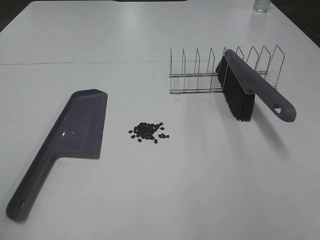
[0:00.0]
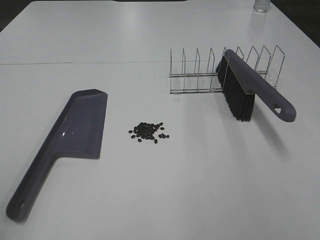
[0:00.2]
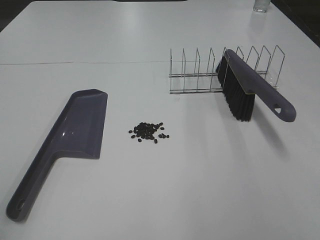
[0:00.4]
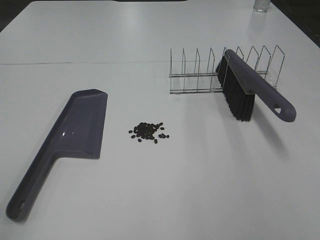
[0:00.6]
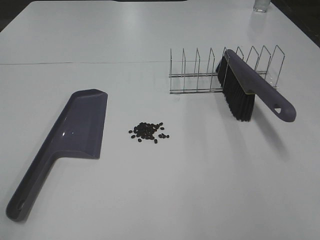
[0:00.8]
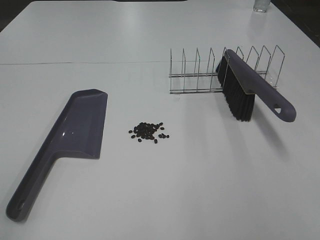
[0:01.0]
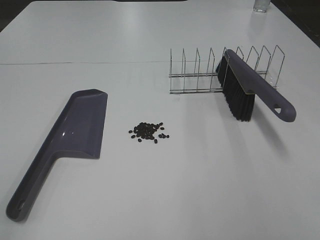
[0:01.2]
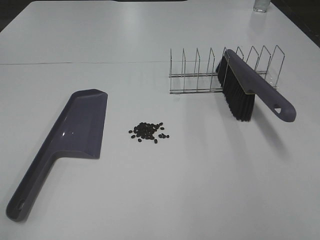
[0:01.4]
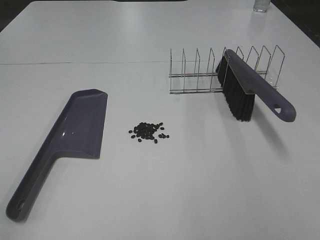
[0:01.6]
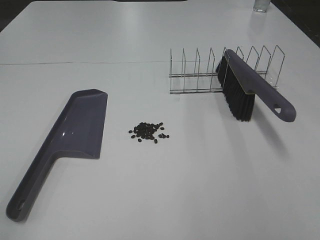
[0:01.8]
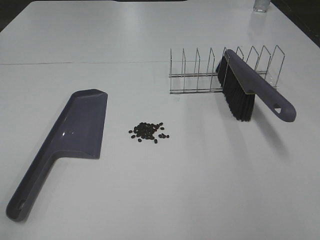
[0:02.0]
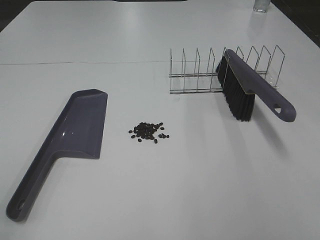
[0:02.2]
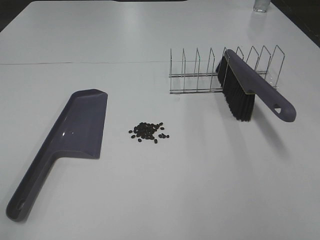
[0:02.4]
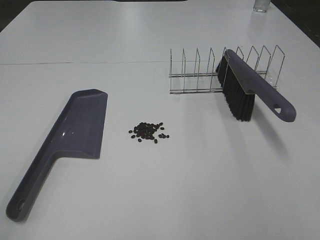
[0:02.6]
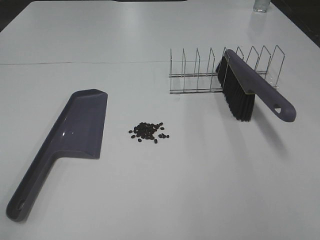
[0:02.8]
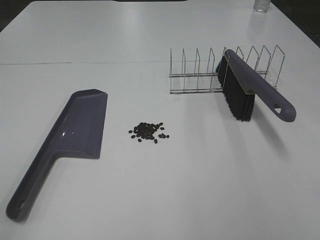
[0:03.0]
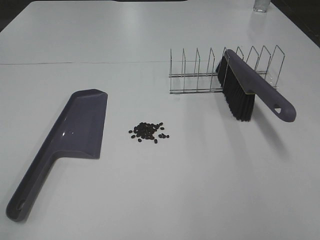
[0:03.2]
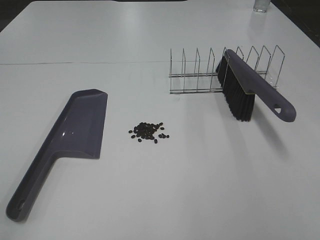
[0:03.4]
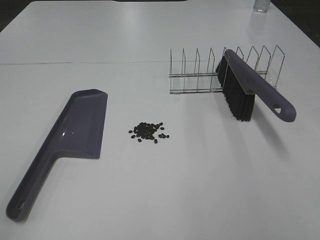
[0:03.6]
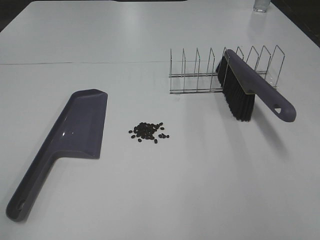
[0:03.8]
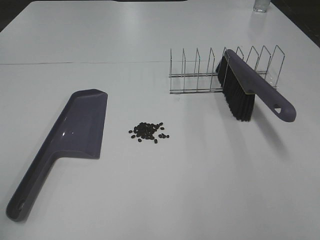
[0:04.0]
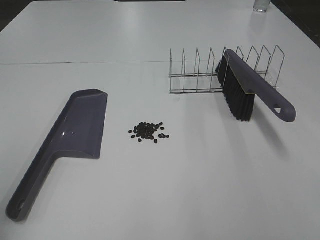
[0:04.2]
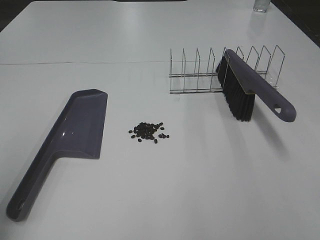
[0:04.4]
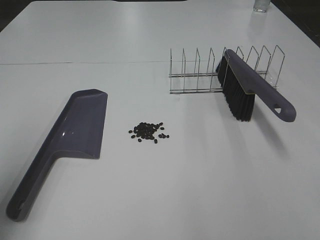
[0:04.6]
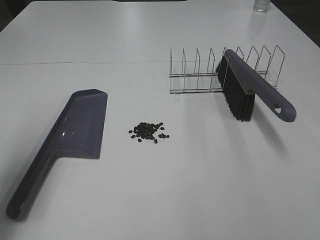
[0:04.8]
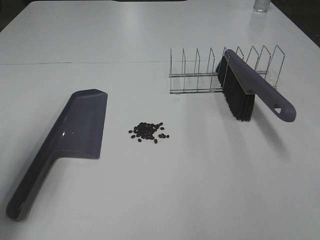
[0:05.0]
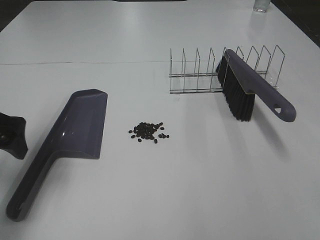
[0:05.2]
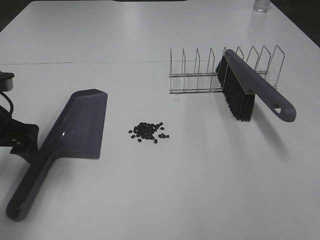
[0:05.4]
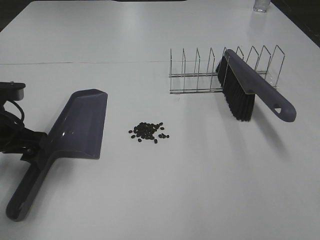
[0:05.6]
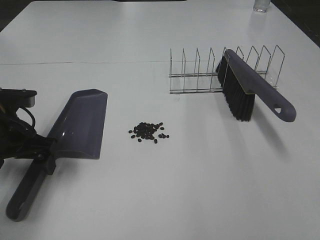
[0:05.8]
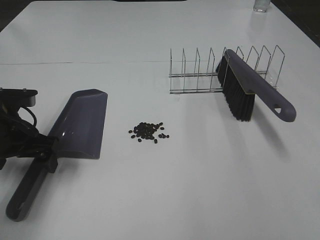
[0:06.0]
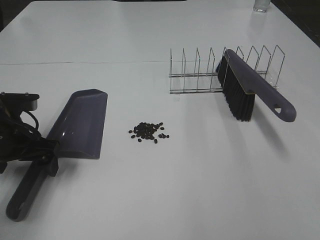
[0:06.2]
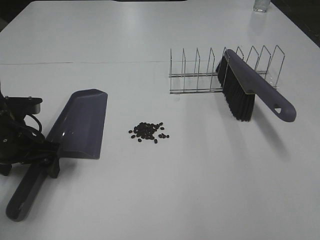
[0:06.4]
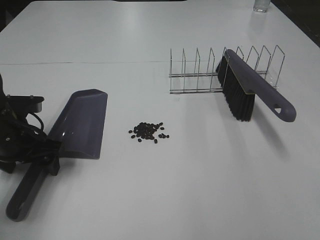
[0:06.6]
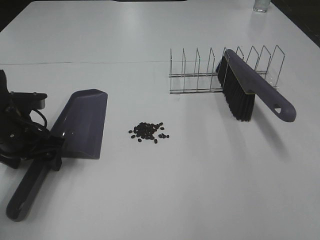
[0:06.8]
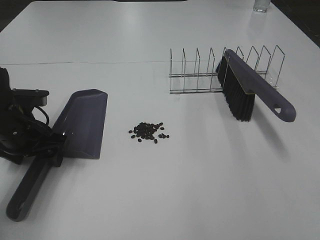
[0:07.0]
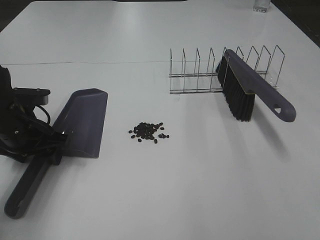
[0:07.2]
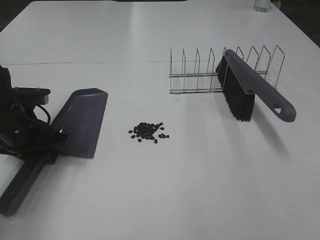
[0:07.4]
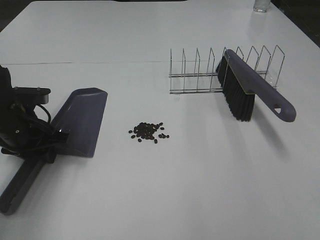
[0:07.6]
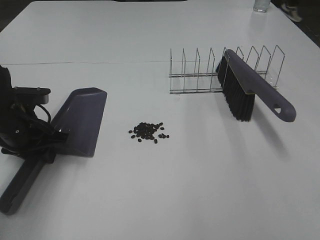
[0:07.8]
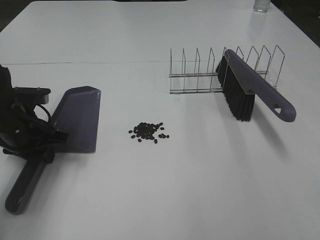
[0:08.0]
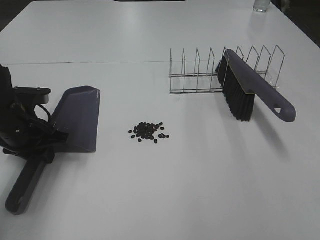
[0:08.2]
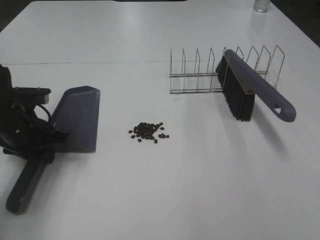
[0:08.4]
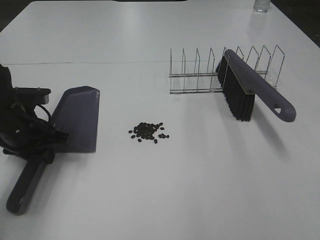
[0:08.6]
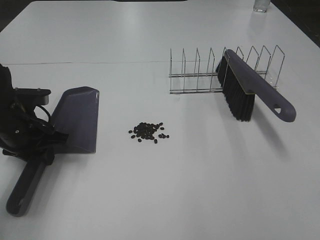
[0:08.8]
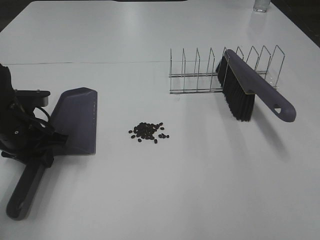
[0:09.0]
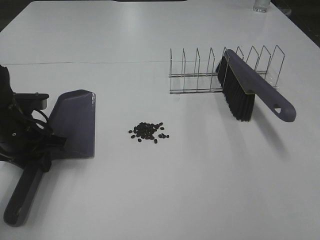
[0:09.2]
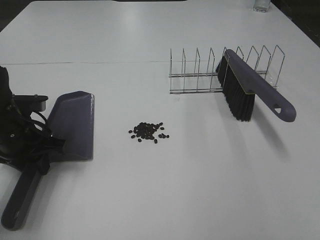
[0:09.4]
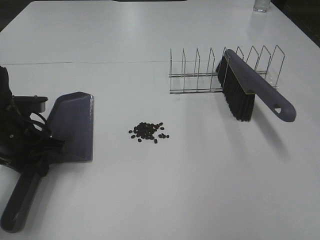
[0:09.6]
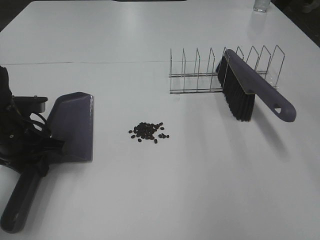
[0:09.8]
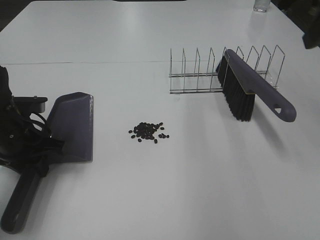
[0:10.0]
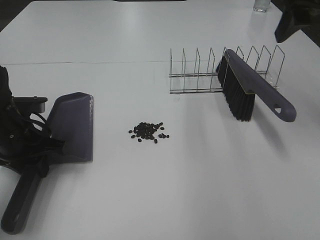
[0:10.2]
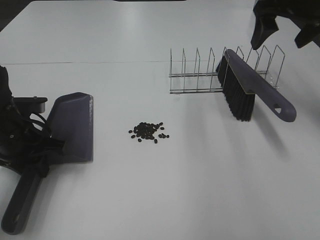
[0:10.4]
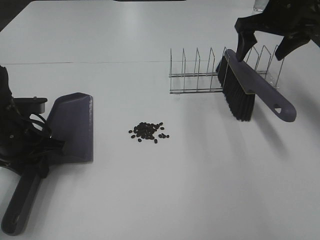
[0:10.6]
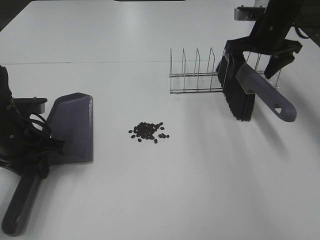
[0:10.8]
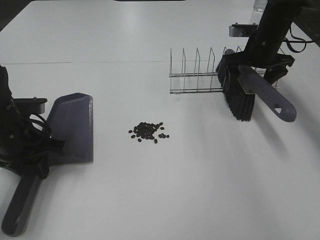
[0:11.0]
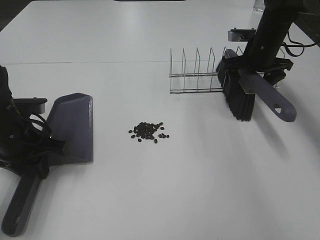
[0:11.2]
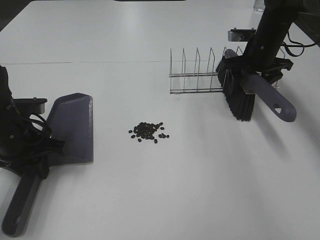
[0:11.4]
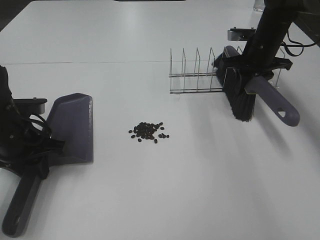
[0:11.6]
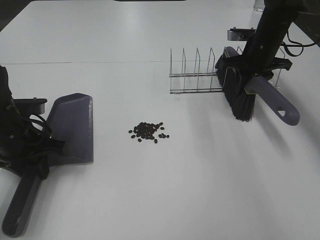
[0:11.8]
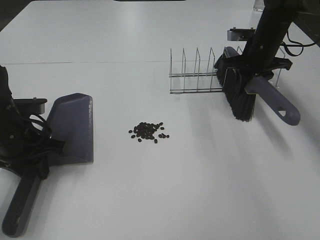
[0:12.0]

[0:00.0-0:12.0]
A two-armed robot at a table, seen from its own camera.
Task of the whole recording: Sweep Coffee Bean.
Step, 0.0 to 7.6 s: Left hand: grab the dustpan.
Step, 9.0 to 11.6 s: Right hand:grab the broom.
0.0 to 3.0 s: The two grippers keep their place.
3.0 to 4.4 s: The left gripper is displaced forward by some 10 cm.
4.4 to 6.0 s: The left gripper is displaced downward, forward and to the right by about 25 cm.
6.0 to 7.6 s: The left gripper closes.
7.6 to 9.0 s: Neither gripper changes place.
9.0 to 10.4 s: The right gripper heads forward, covering about 40 cm.
10.4 to 12.0 s: The right gripper heads downward and forward, covering roughly 15 cm, and closes.

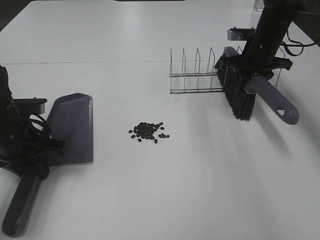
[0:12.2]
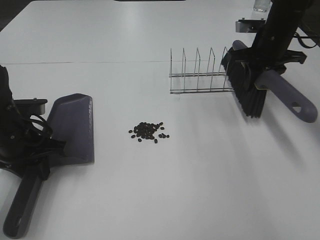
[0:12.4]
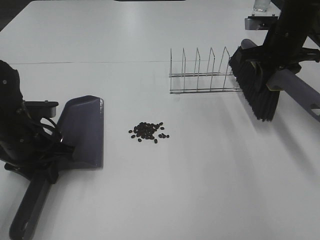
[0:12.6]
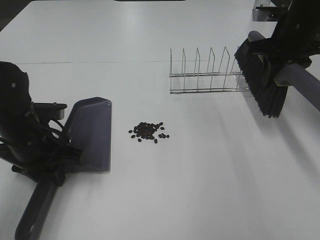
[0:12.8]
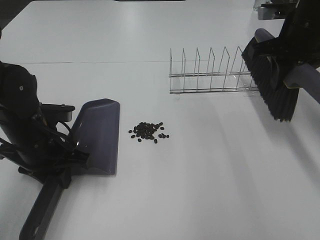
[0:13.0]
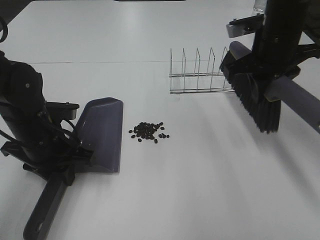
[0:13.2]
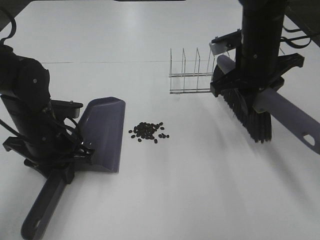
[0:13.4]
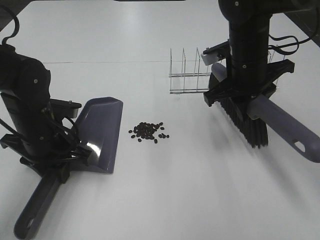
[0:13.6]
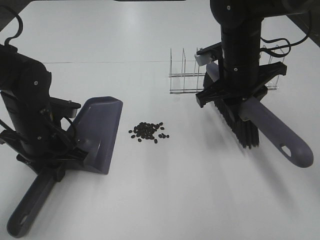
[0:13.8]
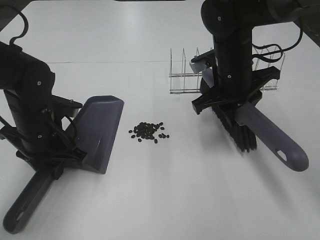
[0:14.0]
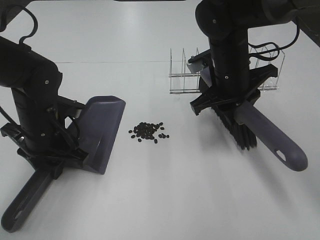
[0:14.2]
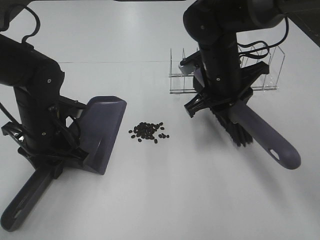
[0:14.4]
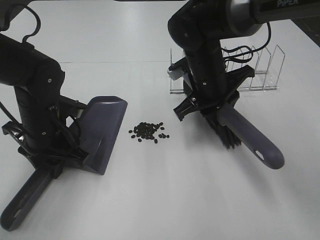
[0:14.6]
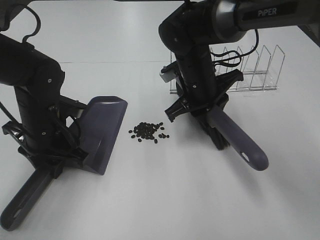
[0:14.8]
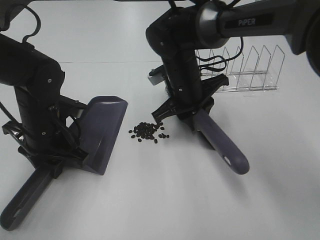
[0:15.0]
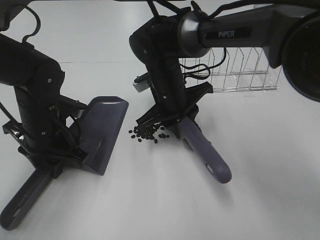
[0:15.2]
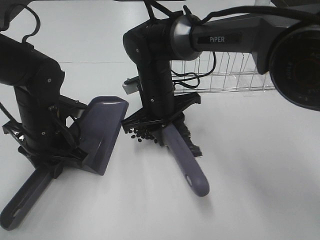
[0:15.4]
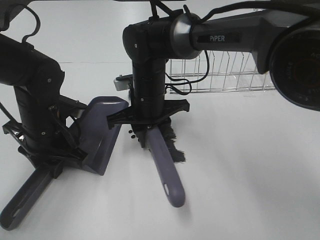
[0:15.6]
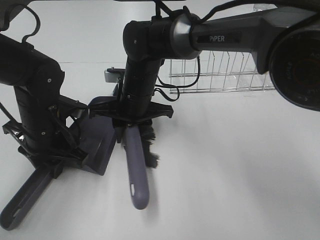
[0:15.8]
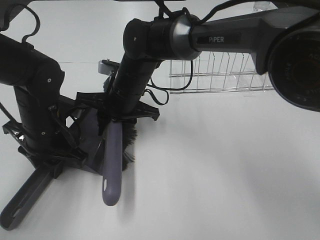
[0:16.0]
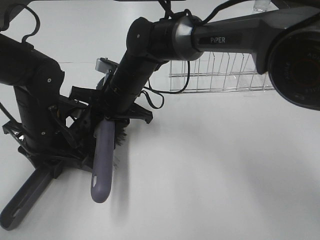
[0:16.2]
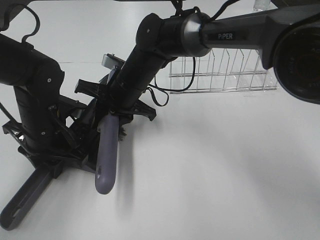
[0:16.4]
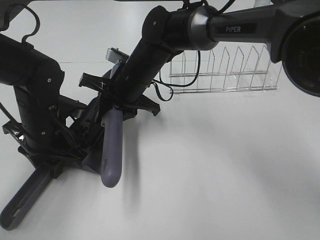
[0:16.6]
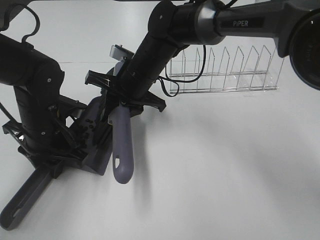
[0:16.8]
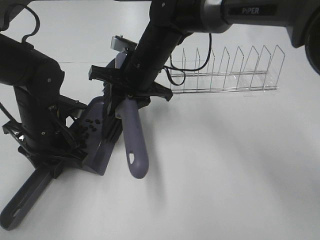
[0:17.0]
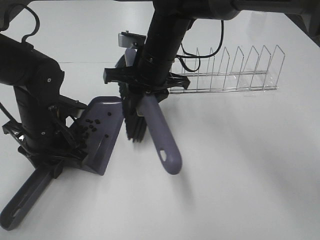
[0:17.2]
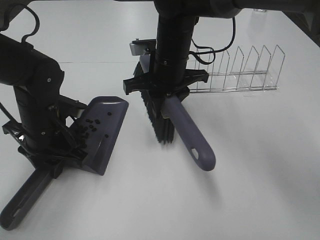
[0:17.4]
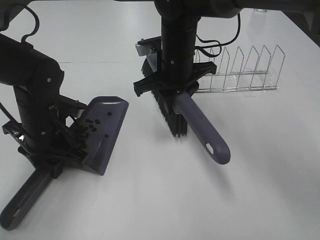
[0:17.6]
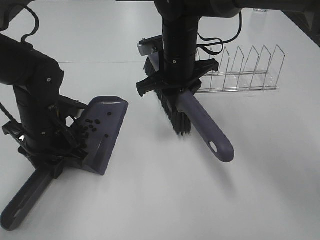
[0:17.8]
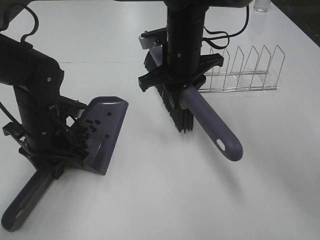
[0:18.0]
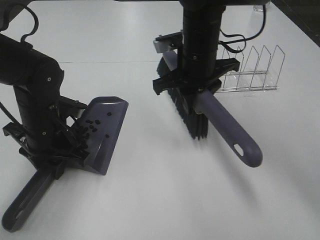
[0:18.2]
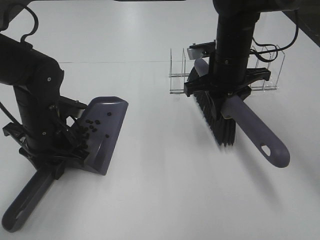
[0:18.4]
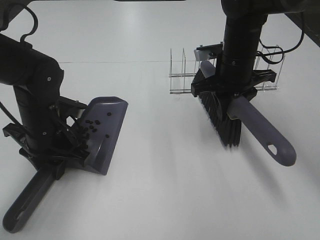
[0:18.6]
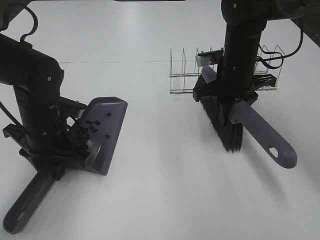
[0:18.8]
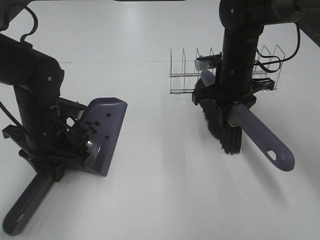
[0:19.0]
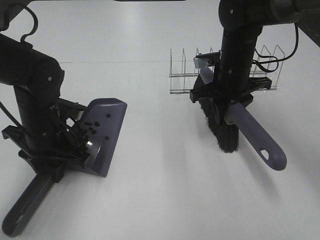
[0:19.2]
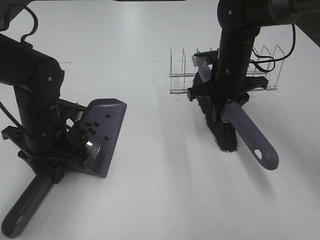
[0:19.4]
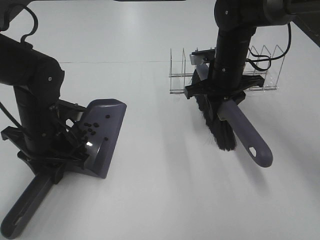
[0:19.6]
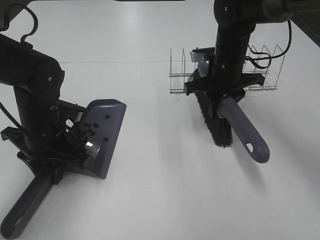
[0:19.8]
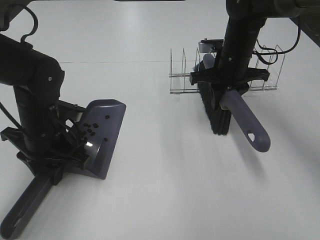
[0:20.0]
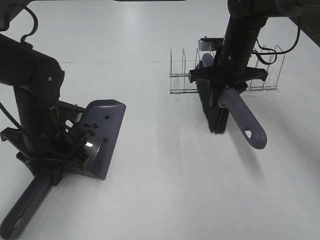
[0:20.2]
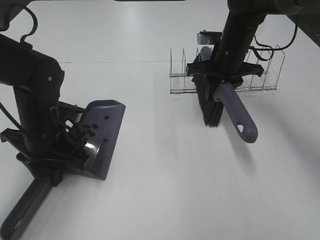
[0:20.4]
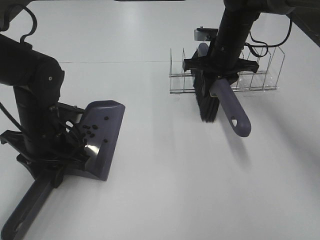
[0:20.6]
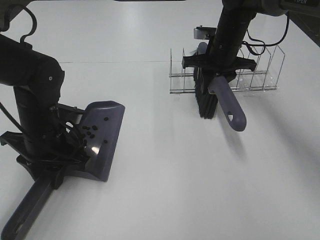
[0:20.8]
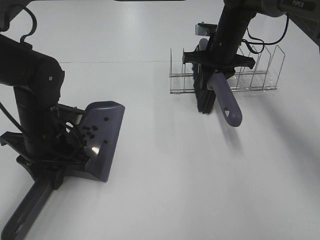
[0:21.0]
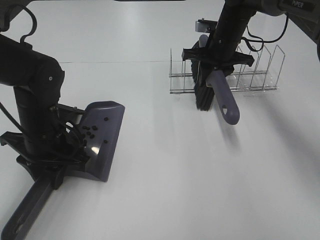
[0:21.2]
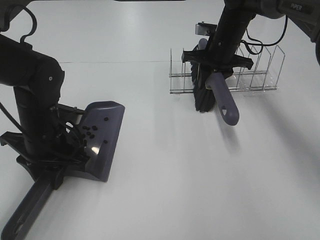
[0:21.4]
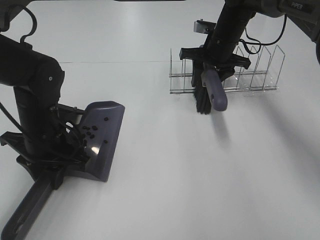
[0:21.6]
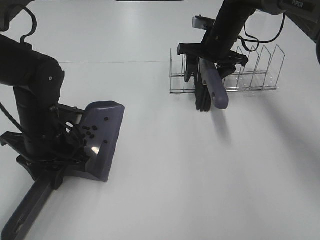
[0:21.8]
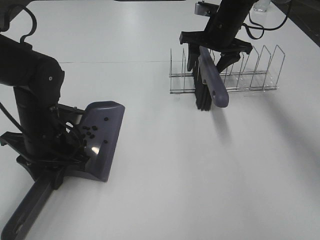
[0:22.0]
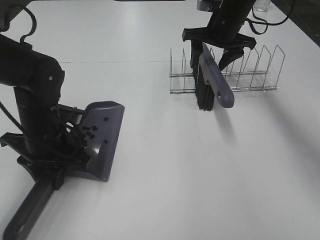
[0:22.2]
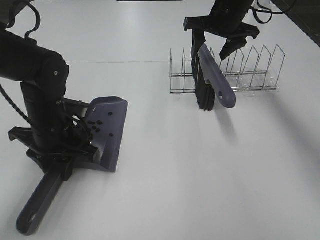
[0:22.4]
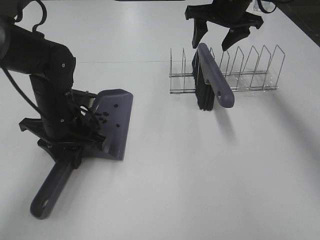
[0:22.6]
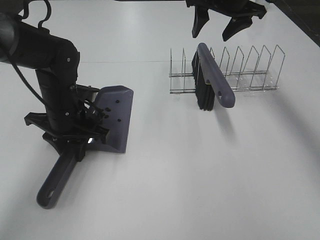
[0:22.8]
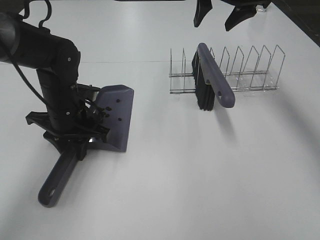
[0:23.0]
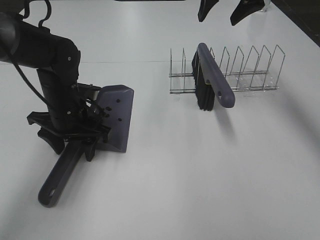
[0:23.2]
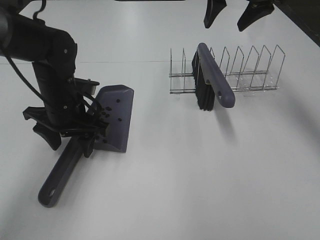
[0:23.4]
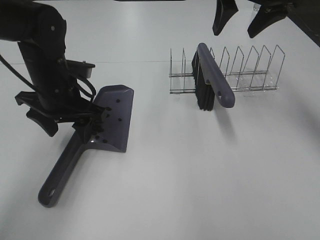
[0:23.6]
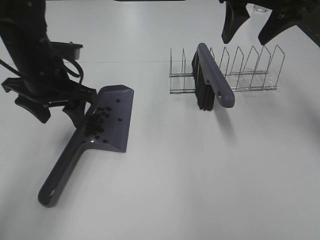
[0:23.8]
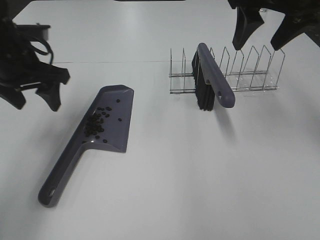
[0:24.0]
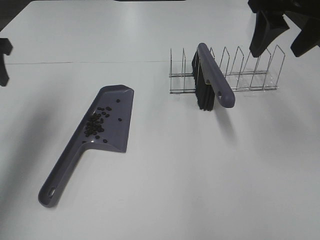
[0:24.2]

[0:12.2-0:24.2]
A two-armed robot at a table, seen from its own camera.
Task of the whole recording: Sweep Coffee Bean.
Step, 12.2 to 14.2 s: Left hand: move the dustpan to the left side of the coffee beans.
Step, 12.2 to 17.0 s: Right hand:sweep the coffee beans into the dustpan.
Step, 17.2 to 22.0 s: Right hand:place the broom on the rack.
Step, 22.2 to 23.2 s: Left hand:place the dustpan on the table.
12.2 to 13.8 s: The right gripper heads backward and to the left, covering roughly 15 cm.
13.8 to 15.2 s: The right gripper shifts roughly 15 cm to the left and downward.
15.2 to 16.6 s: The right gripper heads to the left, covering approximately 5 cm.
16.6 to 18.2 s: The right gripper heads to the right and upward, covering some 15 cm.
18.2 to 19.8 s: The right gripper travels to the right by some 5 cm.
19.8 to 21.2 s: The right gripper shifts approximately 10 cm forward.
21.2 to 22.6 s: The right gripper travels upward by about 10 cm, and opens up.
22.6 to 24.2 s: The left gripper goes about 20 cm upward and to the left, and opens up; the right gripper shifts approximately 20 cm backward and upward.
